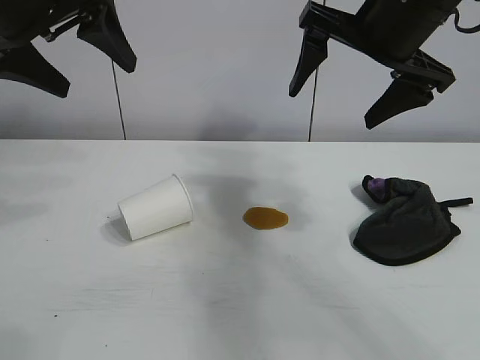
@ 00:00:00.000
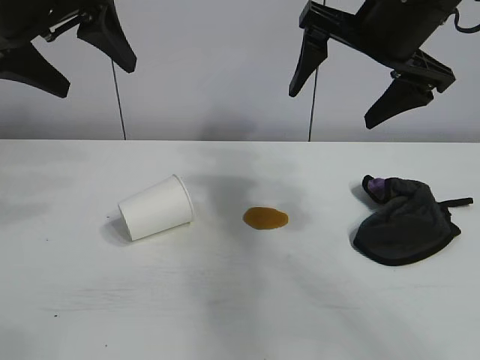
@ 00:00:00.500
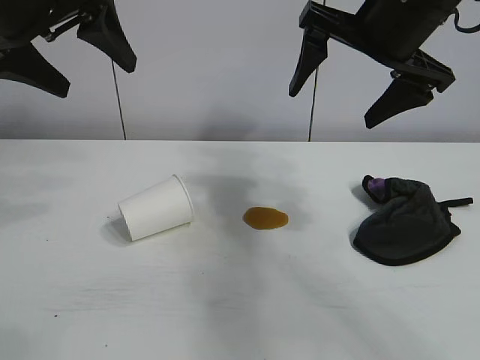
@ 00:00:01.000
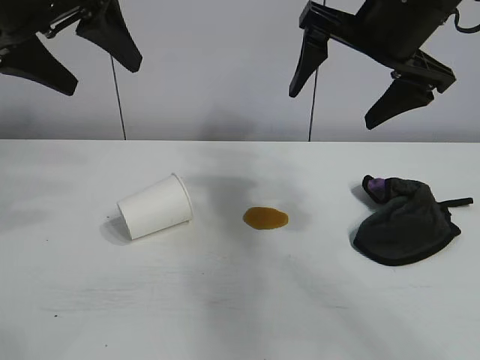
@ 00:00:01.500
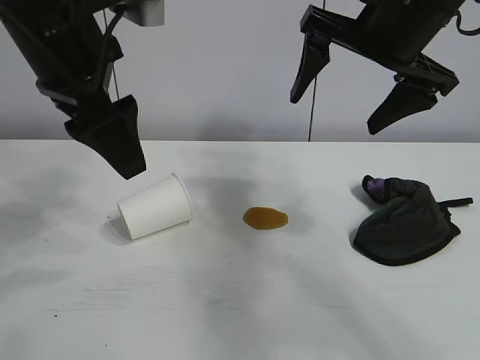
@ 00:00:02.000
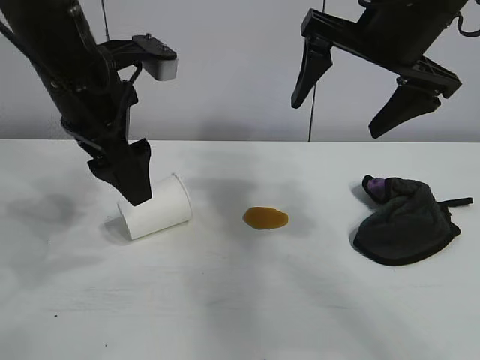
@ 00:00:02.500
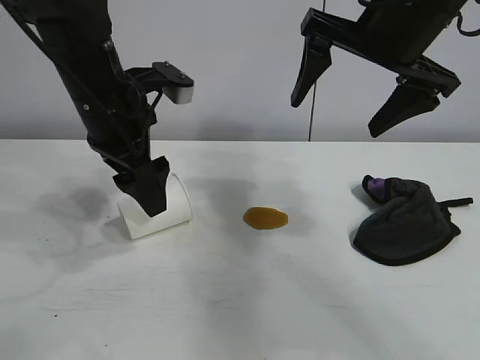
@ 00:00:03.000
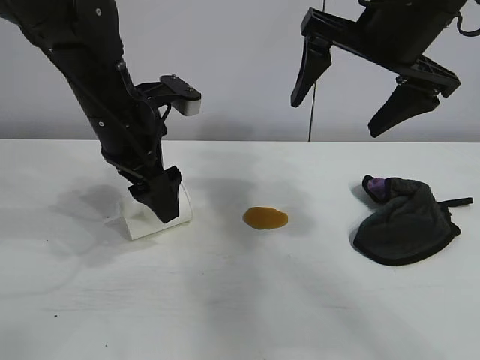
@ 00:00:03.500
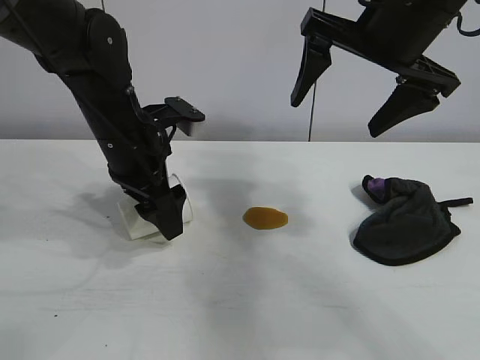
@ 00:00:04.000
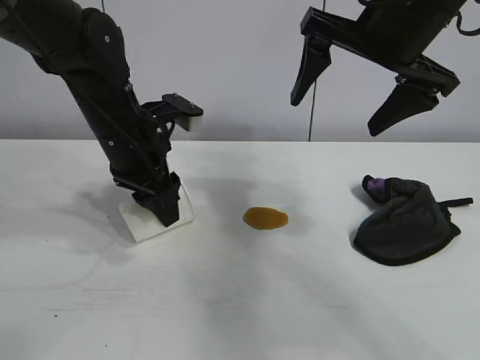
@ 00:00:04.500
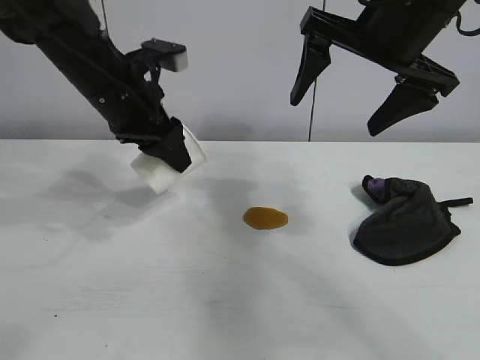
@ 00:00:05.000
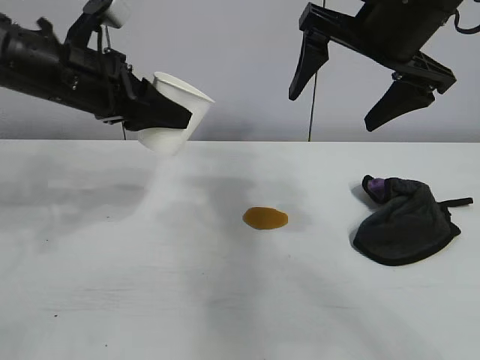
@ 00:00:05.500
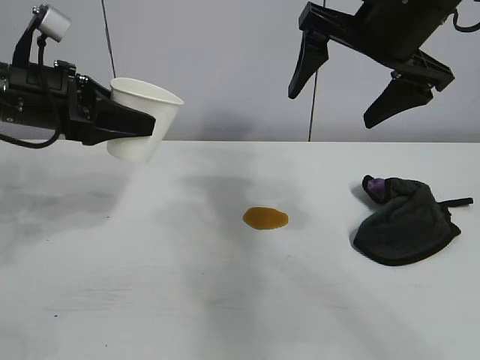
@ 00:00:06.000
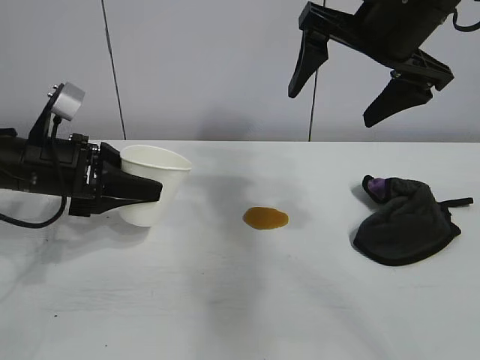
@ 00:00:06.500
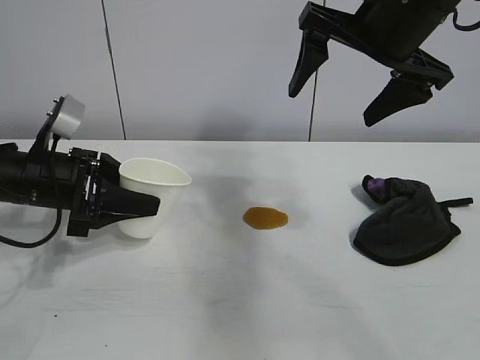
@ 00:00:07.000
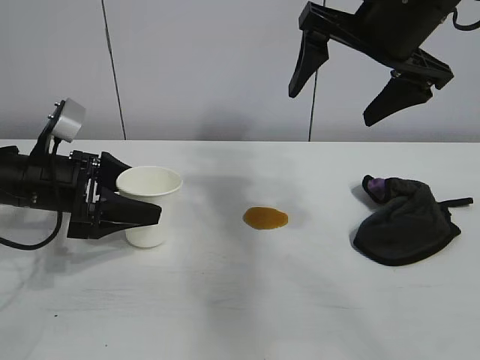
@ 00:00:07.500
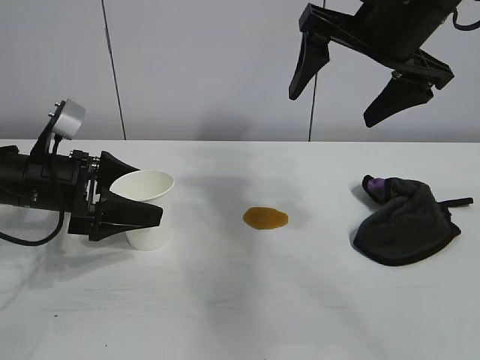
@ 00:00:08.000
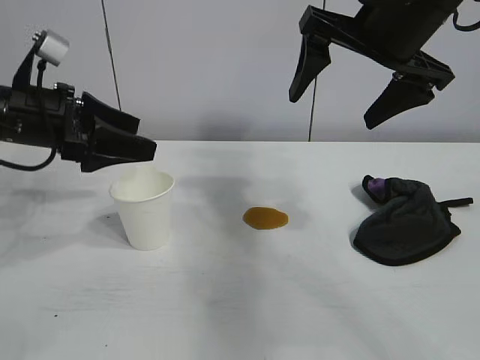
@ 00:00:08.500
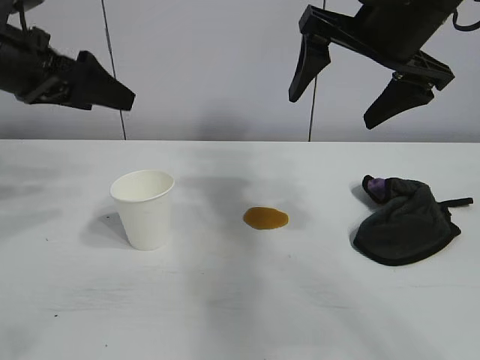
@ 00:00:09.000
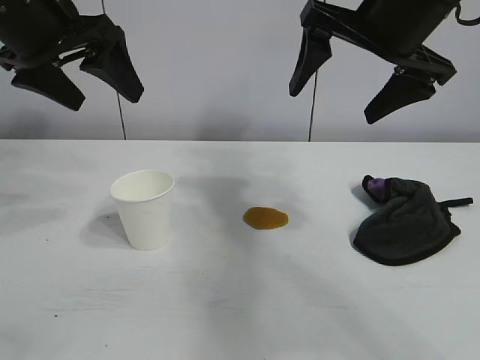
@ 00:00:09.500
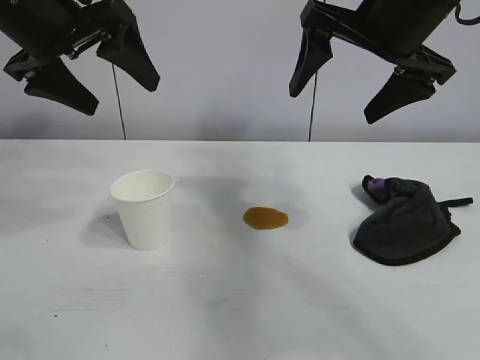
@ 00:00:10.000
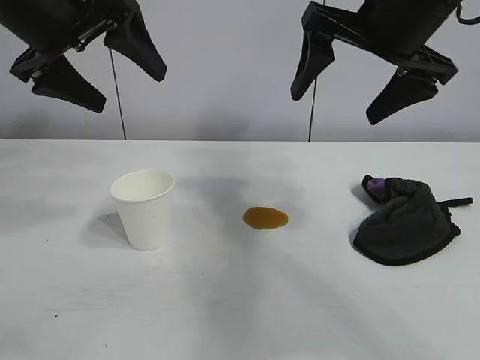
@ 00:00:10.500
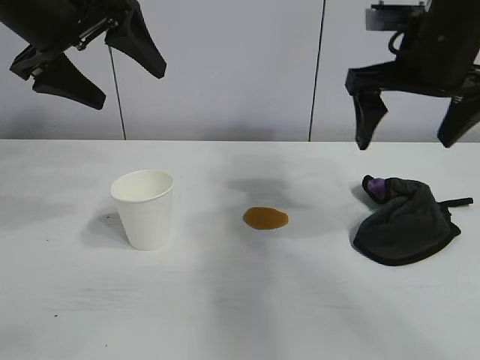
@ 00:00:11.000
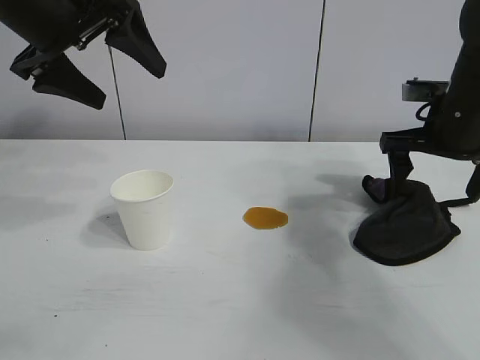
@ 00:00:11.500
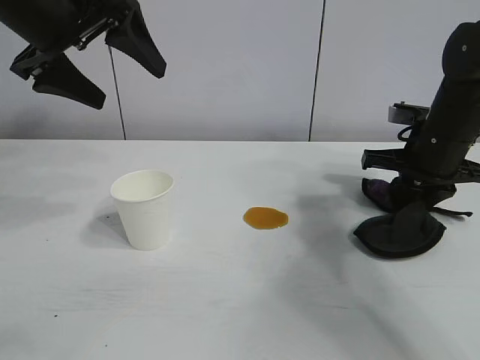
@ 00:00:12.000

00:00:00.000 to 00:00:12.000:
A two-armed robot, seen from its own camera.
Task of the whole recording: the left gripper pick up the fallen cup and place it upright, the right gripper grasp the black rag and wipe the stain on the table, the right gripper put the black rag back in its original position.
Step, 00:00:01.500 to 00:00:04.000: Grasp the paper cup with left gripper.
Step, 00:00:04.500 to 00:00:07.500: Stand the paper cup upright with left gripper.
Step, 00:00:08.000 to 00:00:12.000: Grasp the rag with right gripper.

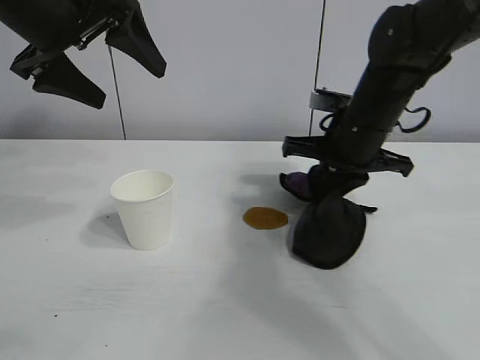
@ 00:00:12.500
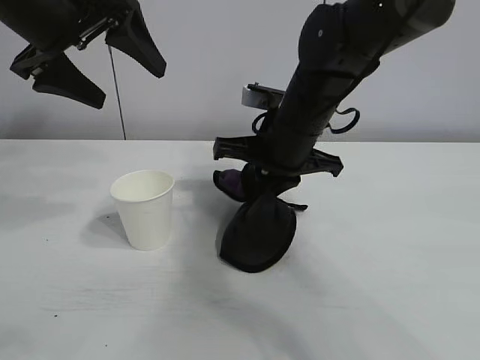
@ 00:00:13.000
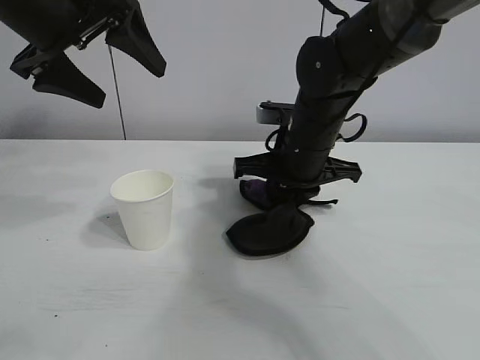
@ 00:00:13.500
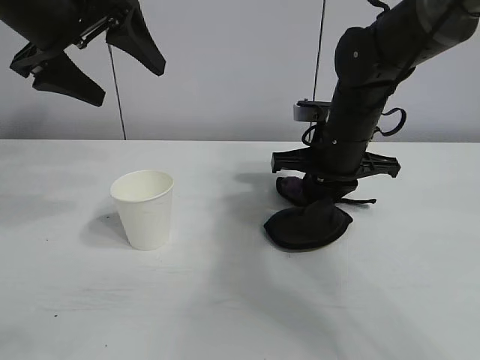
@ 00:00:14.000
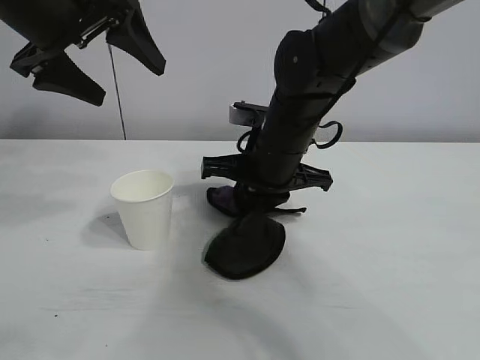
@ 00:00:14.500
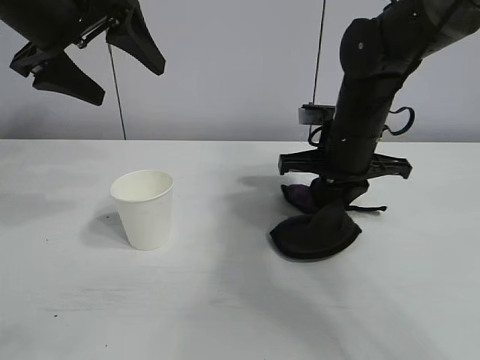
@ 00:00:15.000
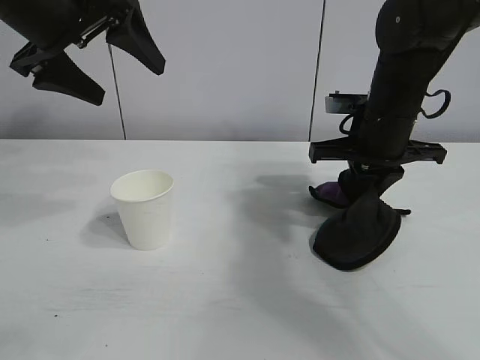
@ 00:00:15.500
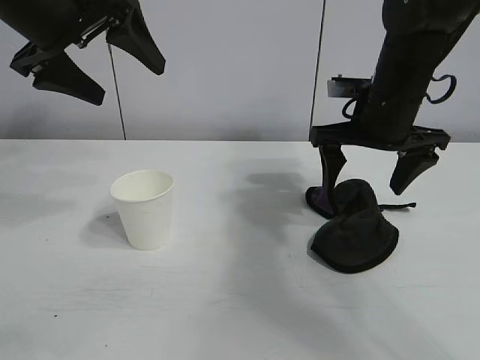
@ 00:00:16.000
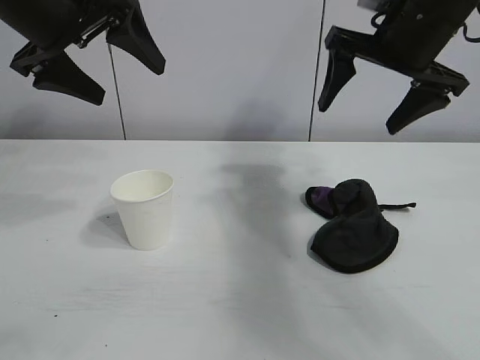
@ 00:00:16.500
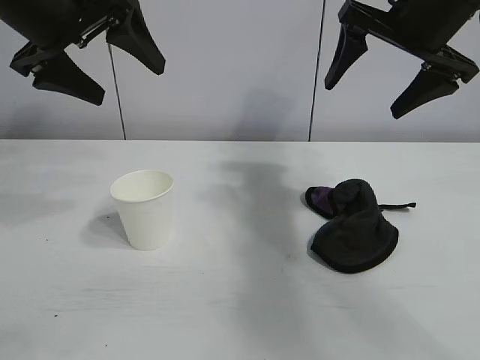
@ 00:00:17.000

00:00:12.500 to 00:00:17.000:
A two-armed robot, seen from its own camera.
Task of the whole recording: the left gripper pick up the fallen cup and place it upright, the right gripper grasp the black rag and wipe the stain on the table, the right gripper put the black rag back in its original position.
Step, 00:00:12.500 to 00:00:15.000: Wipe the stains off the table with the rag with right gripper.
